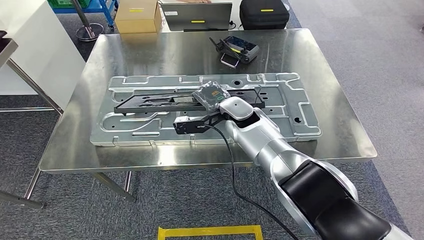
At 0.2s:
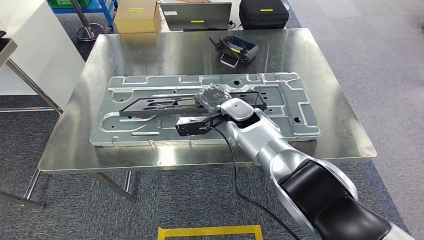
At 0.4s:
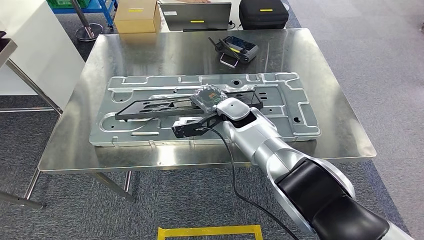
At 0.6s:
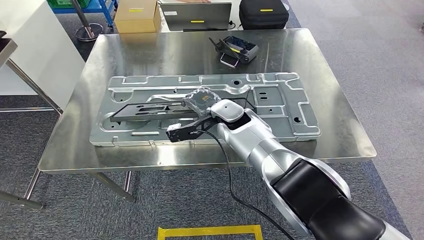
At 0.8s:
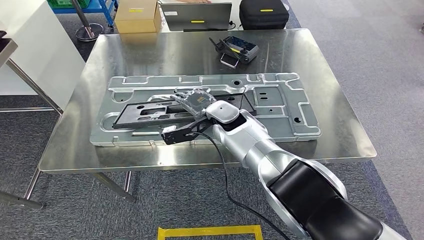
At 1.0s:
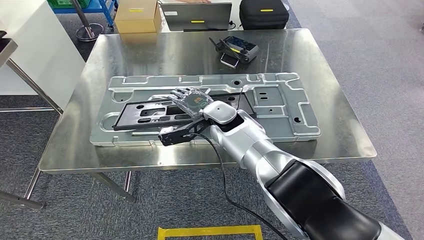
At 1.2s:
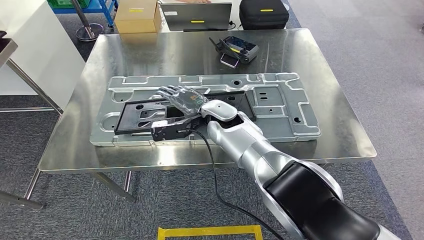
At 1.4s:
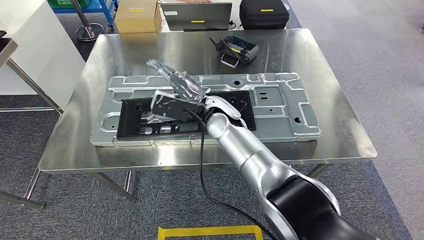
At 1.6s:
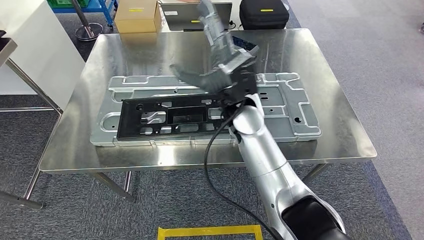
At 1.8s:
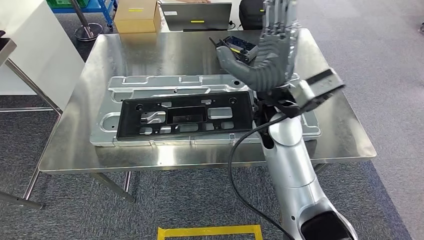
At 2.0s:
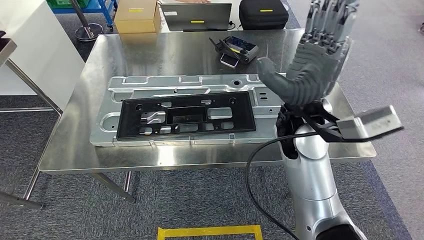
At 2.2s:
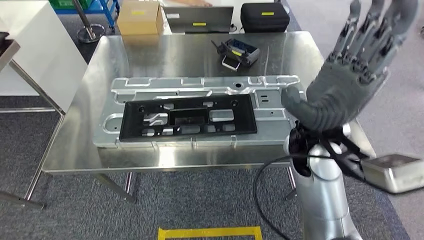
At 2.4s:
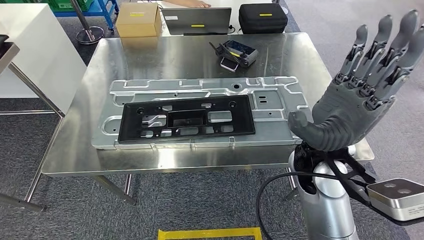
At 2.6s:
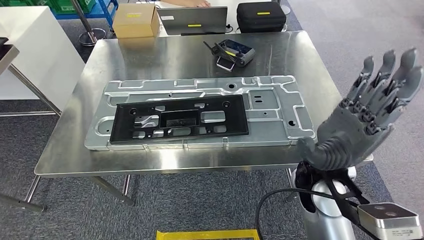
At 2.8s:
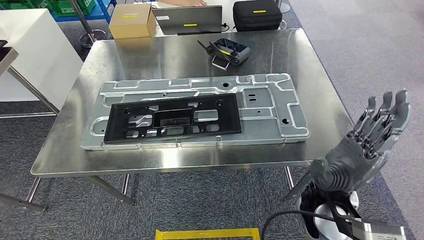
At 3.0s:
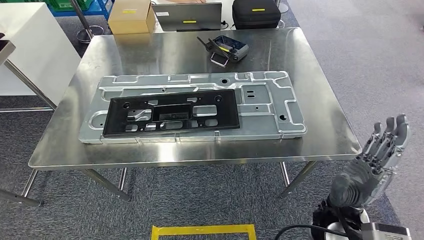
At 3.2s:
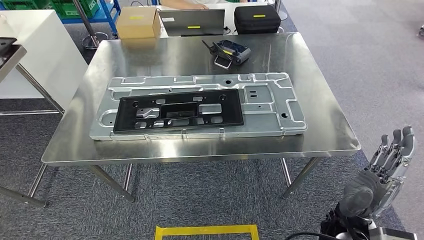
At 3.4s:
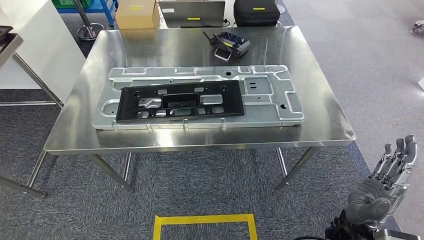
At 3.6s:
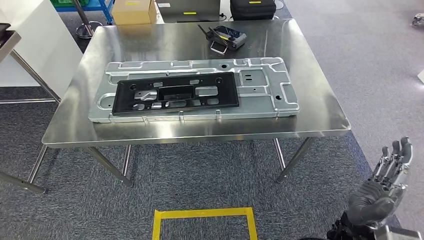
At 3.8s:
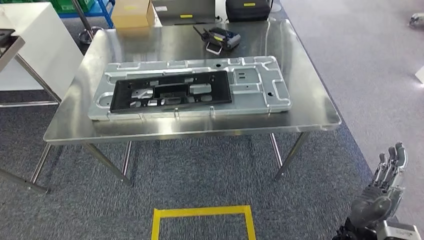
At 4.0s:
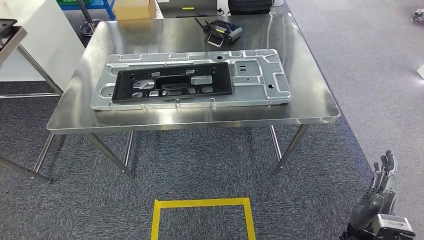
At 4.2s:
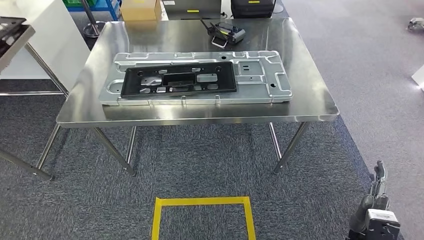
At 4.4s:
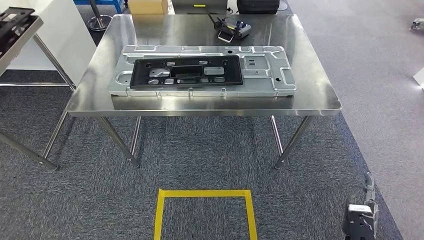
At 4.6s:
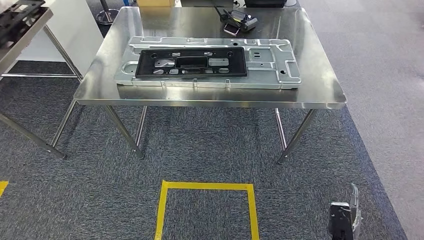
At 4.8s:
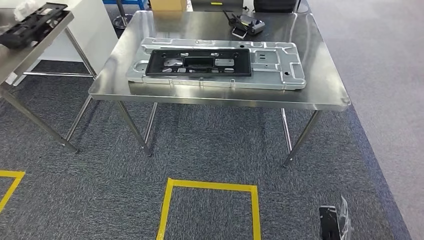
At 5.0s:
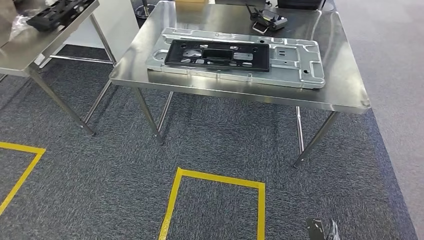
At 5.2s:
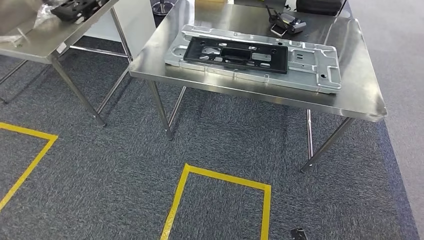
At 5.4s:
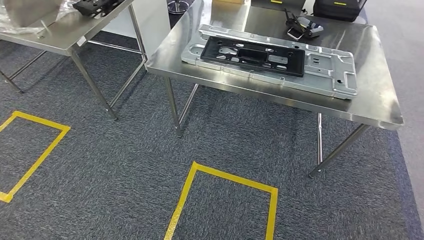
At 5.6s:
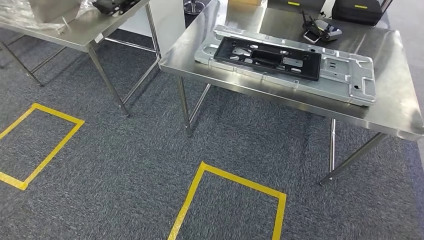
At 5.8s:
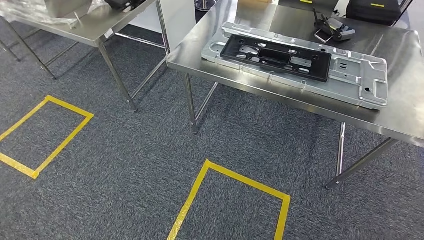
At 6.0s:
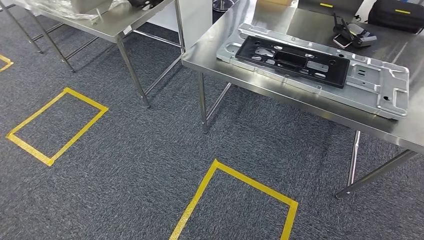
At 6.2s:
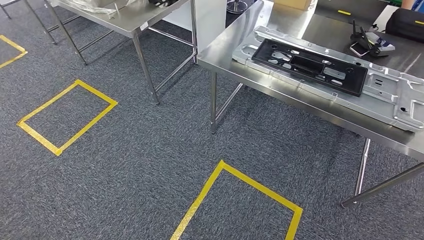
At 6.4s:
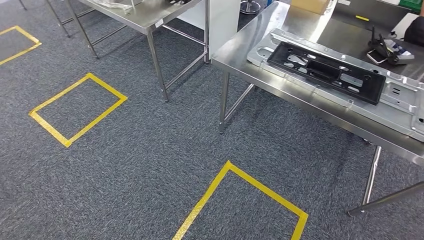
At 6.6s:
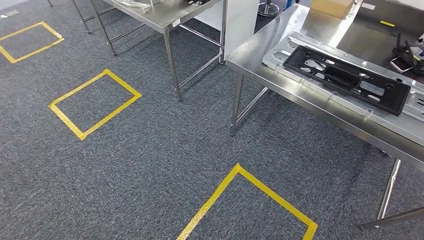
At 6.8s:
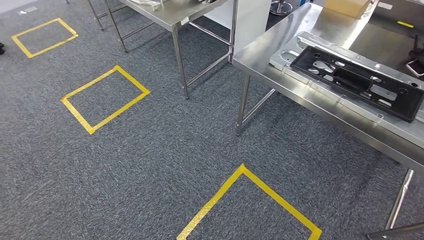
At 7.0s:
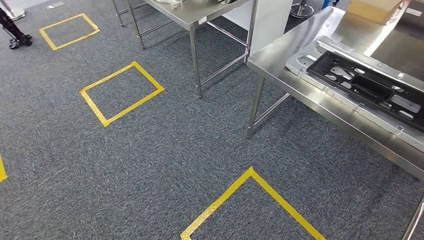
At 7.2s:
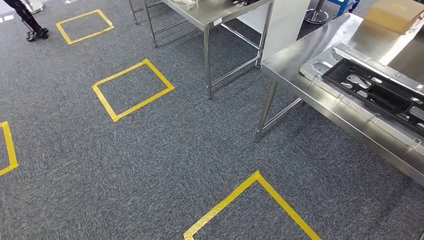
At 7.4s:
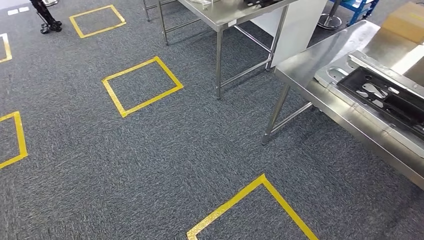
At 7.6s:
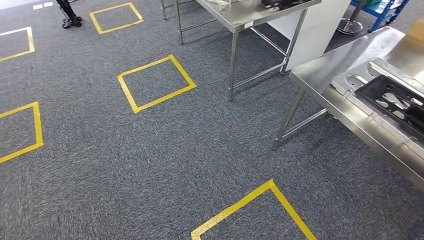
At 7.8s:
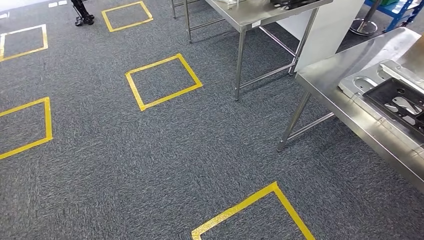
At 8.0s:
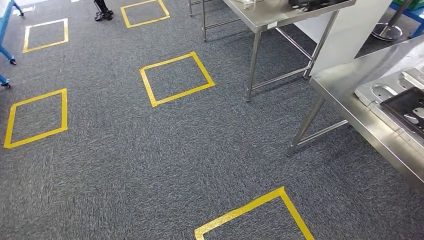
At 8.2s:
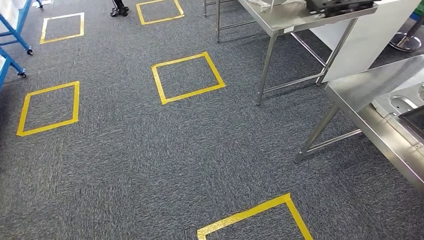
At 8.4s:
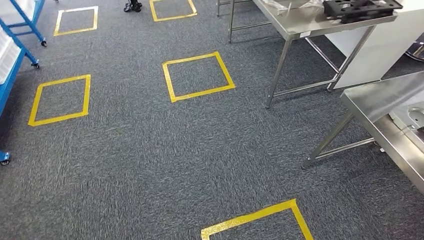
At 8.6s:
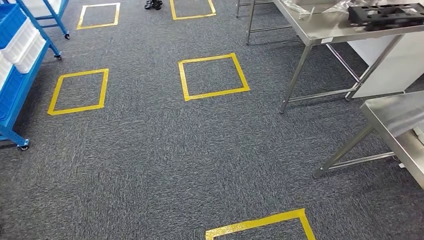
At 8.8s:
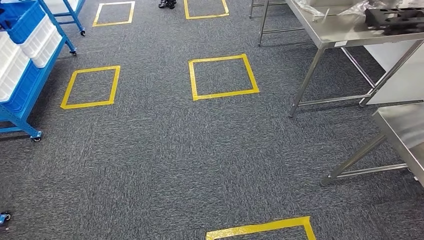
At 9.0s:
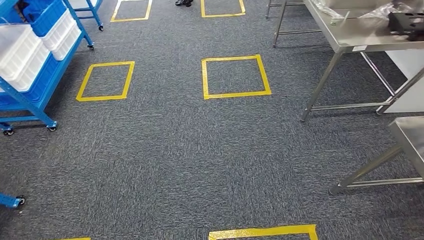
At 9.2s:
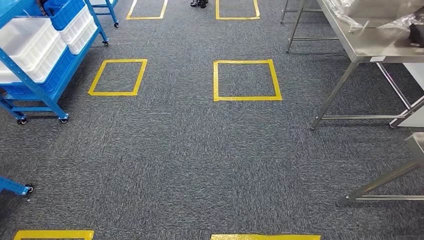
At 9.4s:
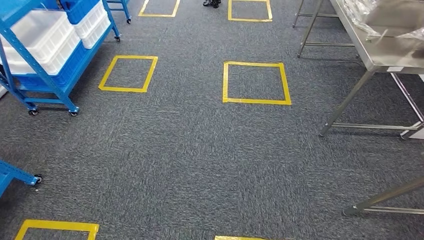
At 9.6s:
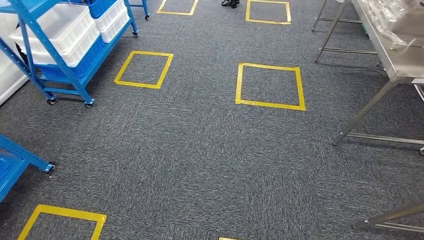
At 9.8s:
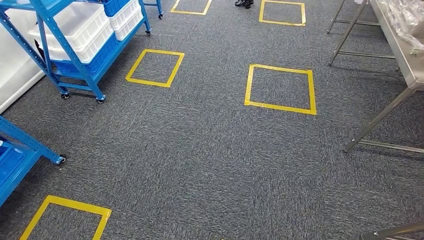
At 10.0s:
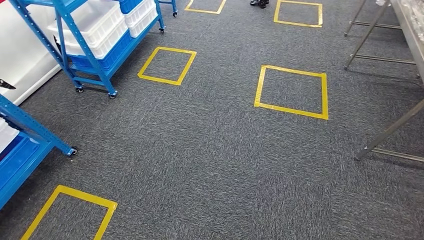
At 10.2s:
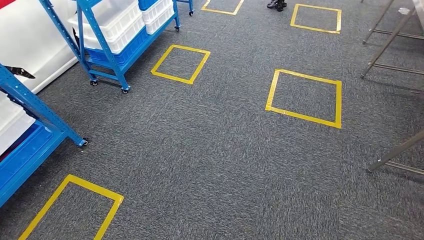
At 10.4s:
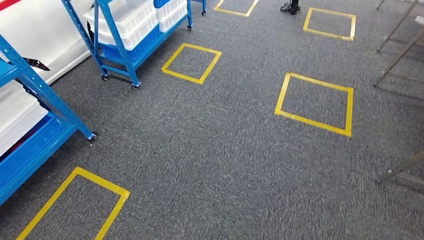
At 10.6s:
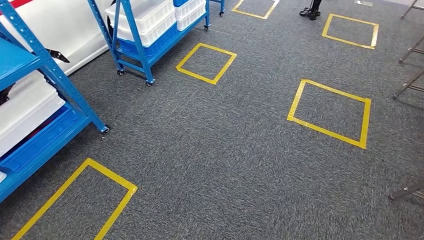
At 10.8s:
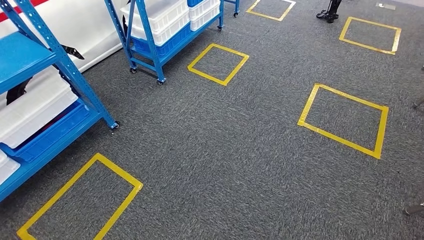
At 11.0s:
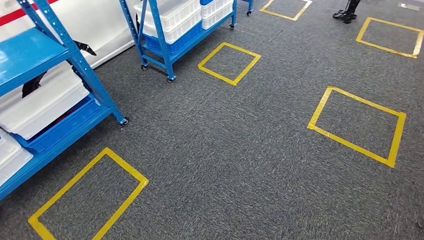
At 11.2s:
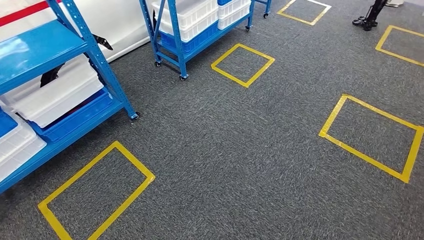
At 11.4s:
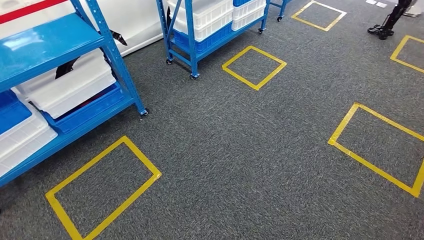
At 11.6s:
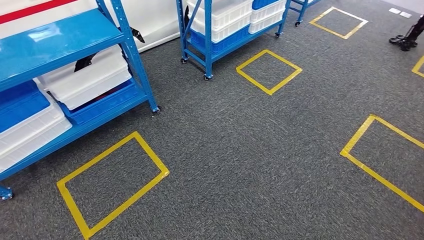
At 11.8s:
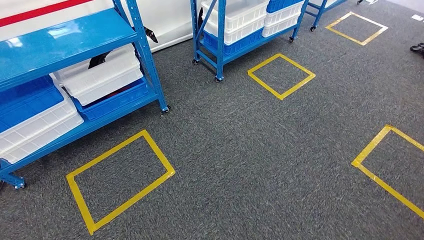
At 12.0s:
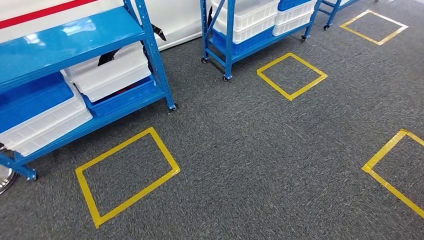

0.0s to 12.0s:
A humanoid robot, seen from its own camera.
Step, 0.0s to 3.0s: Insert the large material into the corresponding slot on the workbench.
0.0s to 1.6s: The right hand shifts about 10 cm upward and backward.

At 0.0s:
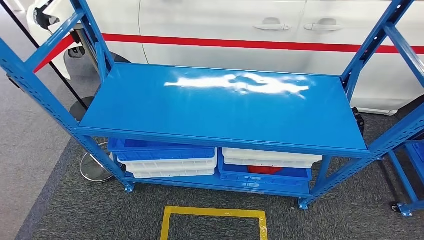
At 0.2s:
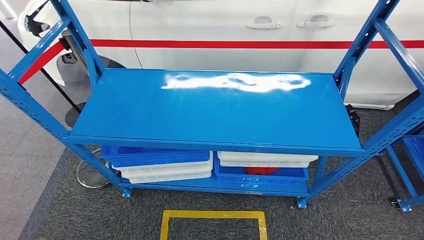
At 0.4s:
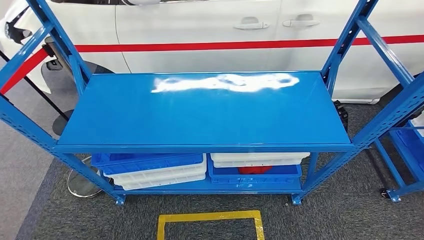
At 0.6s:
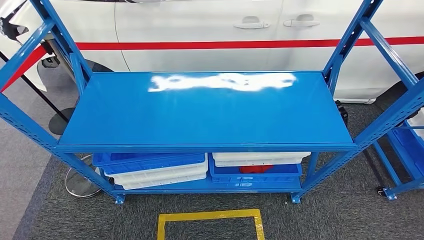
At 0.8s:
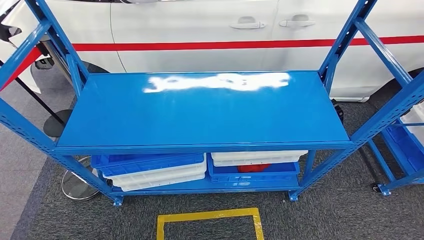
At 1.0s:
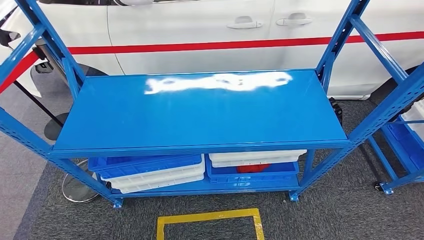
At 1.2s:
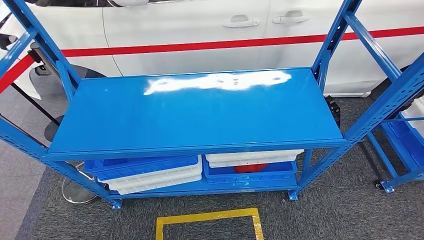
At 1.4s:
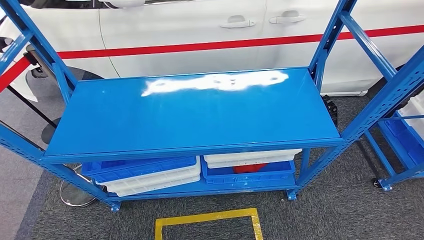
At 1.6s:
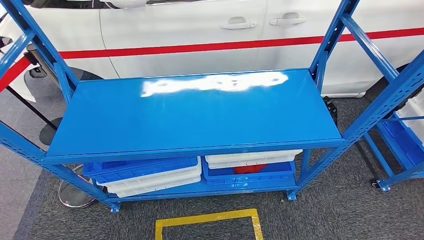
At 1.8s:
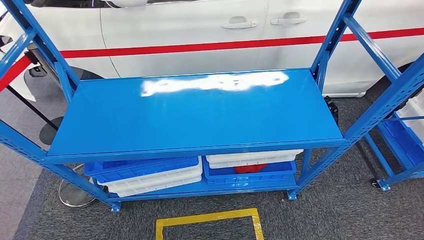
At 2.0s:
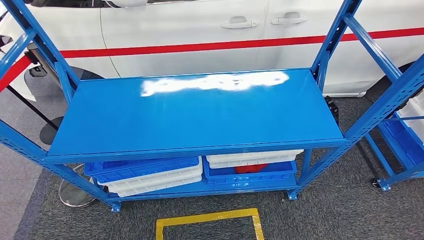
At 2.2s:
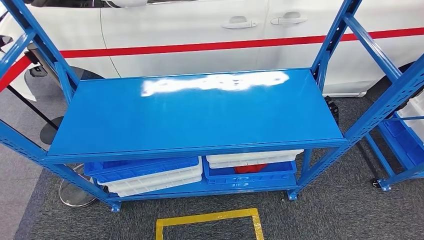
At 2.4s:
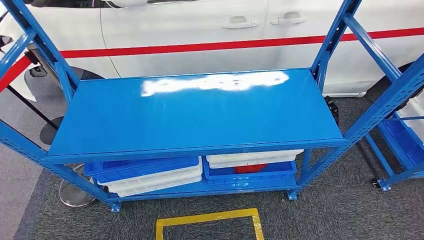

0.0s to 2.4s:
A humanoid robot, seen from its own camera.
Step, 0.0s to 2.2s: Move to the initial position of the shelf.
1.2s to 2.4s: The hands make only small movements.
